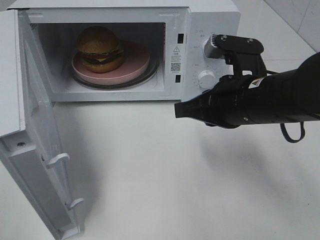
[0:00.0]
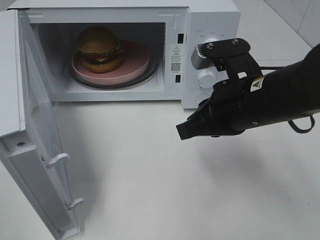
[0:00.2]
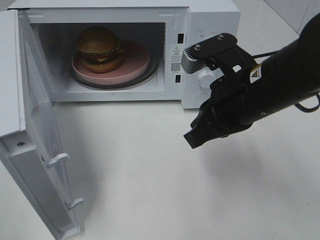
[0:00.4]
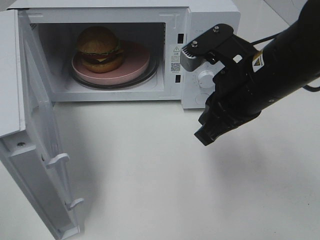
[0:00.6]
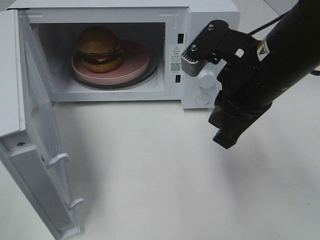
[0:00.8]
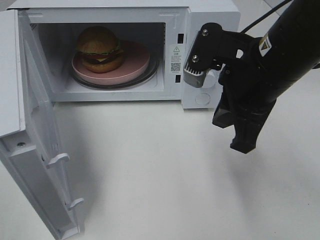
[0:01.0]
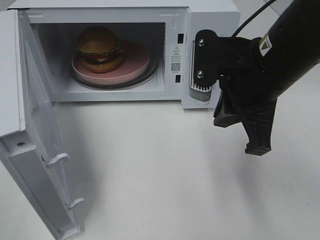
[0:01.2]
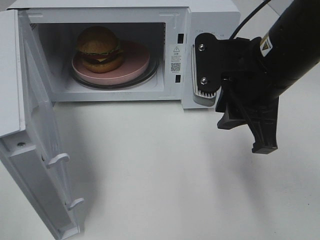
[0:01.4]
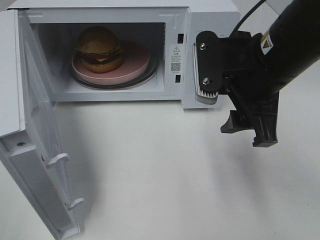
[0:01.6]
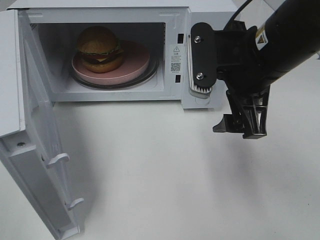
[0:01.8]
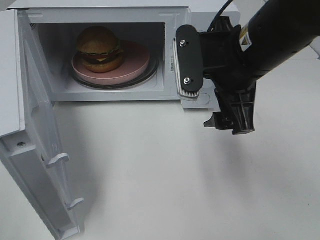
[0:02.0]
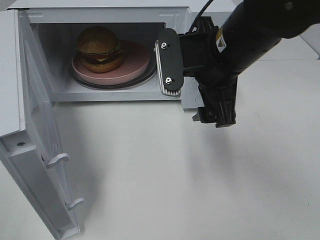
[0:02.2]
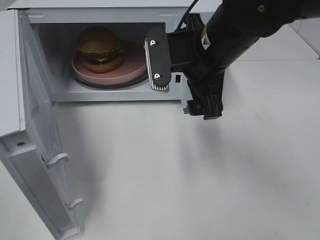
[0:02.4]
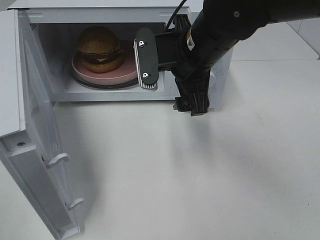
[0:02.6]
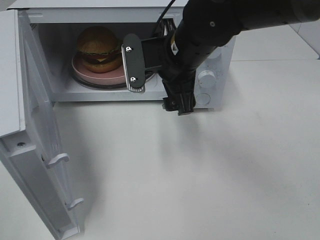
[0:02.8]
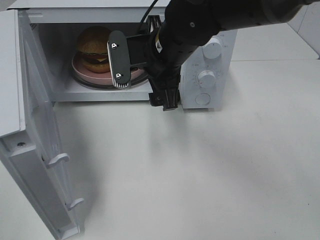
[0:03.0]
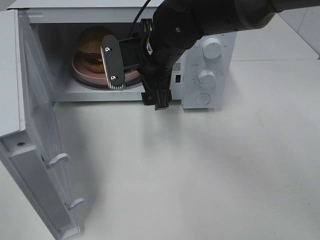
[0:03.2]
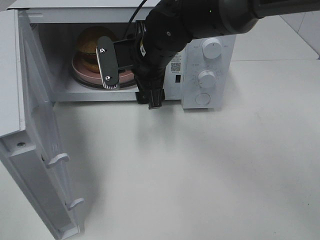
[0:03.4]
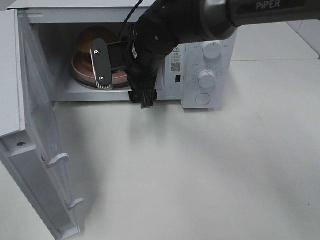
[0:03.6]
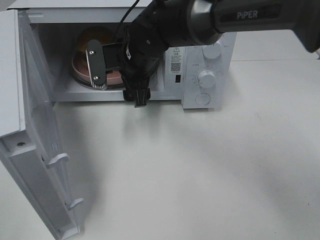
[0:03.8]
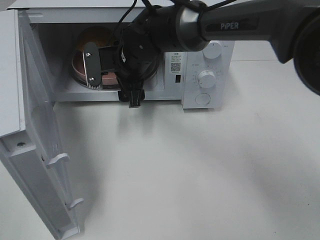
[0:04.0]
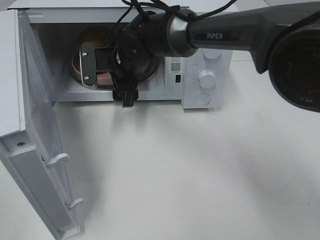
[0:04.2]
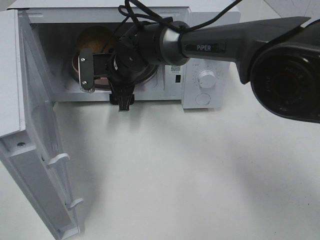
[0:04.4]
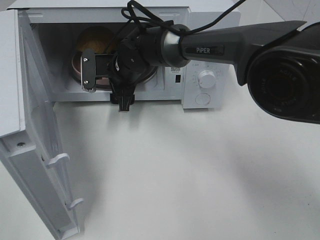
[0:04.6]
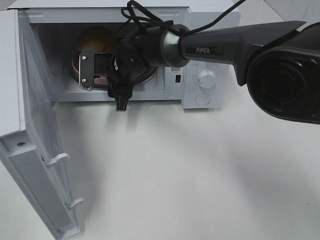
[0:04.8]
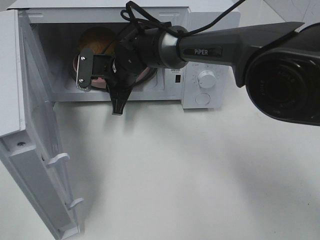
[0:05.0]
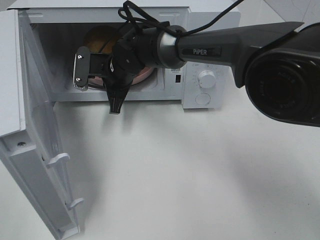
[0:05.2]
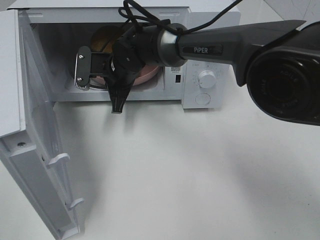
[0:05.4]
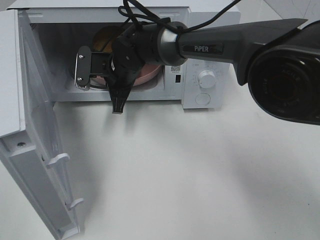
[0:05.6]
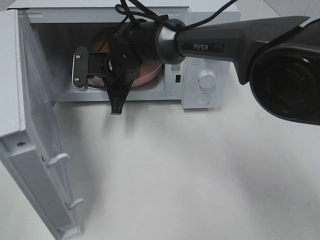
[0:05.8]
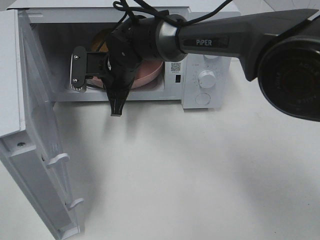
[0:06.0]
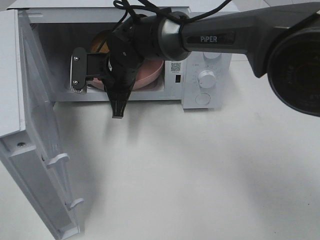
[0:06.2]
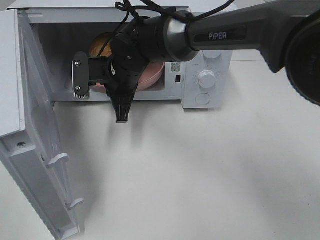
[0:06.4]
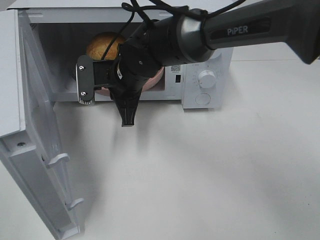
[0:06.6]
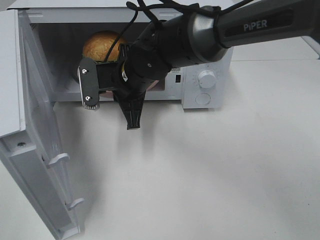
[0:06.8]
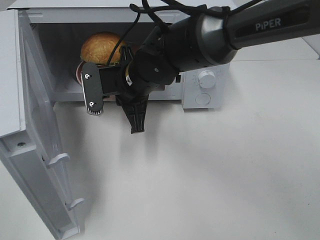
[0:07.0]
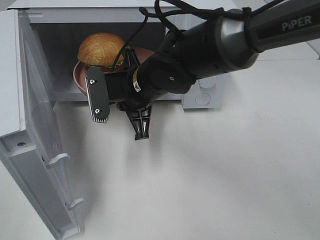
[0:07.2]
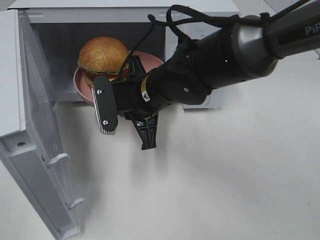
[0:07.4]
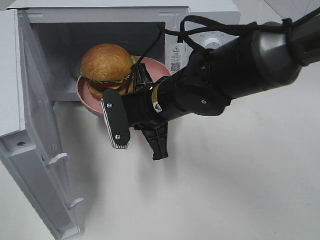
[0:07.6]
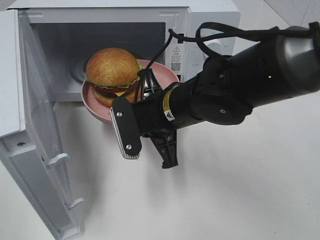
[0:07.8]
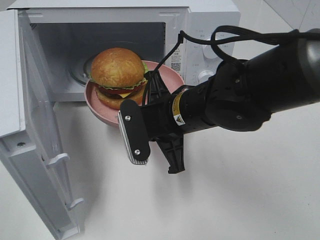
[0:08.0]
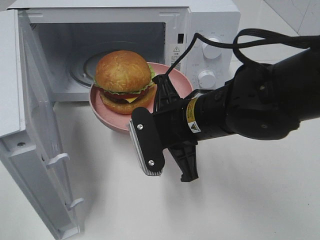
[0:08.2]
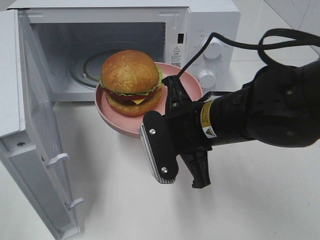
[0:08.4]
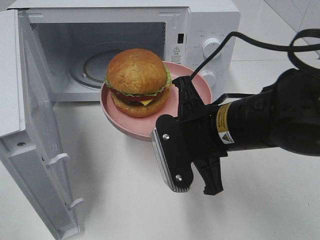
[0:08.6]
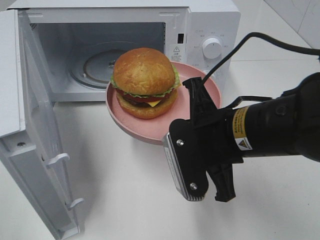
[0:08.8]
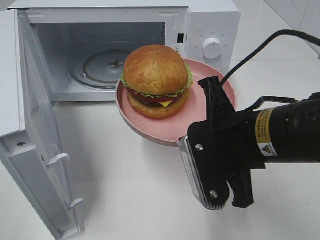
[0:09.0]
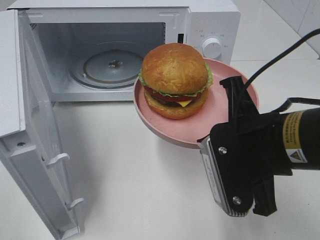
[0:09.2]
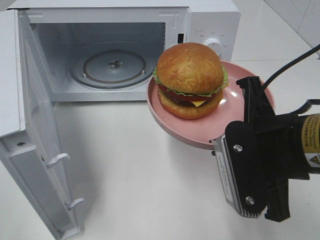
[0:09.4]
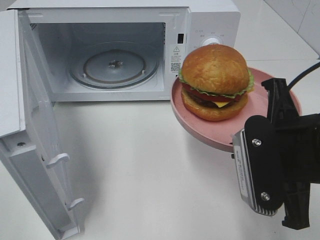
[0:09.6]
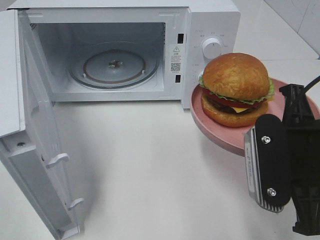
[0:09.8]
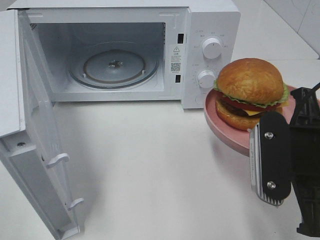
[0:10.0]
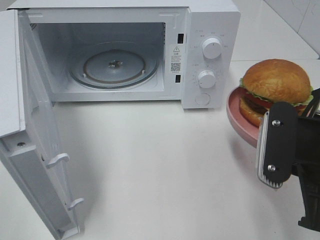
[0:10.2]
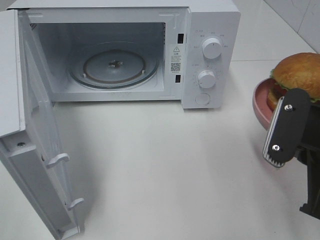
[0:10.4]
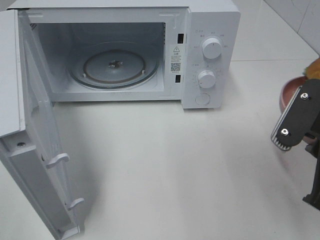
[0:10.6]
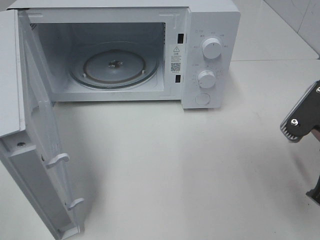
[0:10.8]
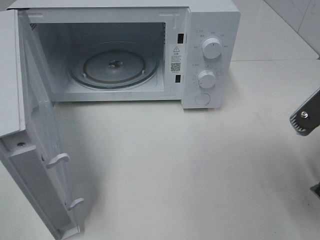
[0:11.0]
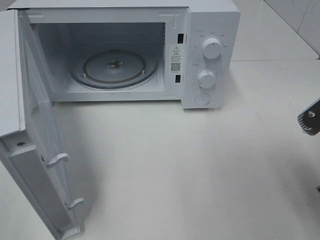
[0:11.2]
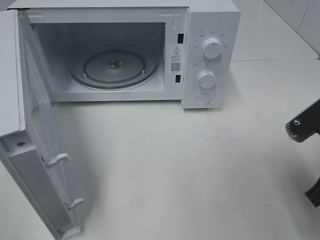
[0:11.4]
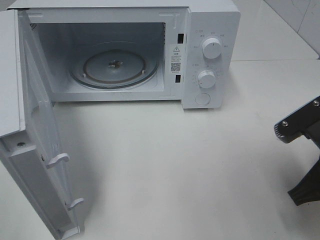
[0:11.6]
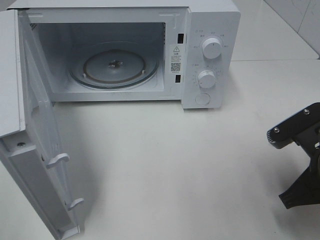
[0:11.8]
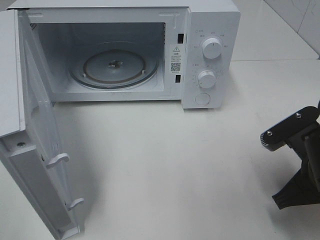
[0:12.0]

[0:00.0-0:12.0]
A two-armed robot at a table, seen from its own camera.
Task of the whole recording: Heat the burger.
Step, 0:00.0 to 0:05.0: Right hand: grab the plate with the hamburger.
0:00.0 to 0:01.6: The right gripper goes about 5 cm upward, and opens.
0:01.6 to 0:03.0: The right gripper heads to the left and forward, covering about 15 cm.
0:03.0 to 0:04.4: The right gripper heads forward, downward and to the left, covering some 15 cm.
0:04.4 to 0:06.0: The right gripper closes up.
0:06.0 to 0:07.6: The right gripper shifts about 15 cm backward and to the right.
0:07.6 to 0:09.0: The right gripper moves backward and to the right, some 15 cm.
0:09.0 to 0:10.4: The right gripper moves to the right, approximately 10 cm.
0:10.4 to 0:12.0: The right gripper heads downward, covering some 5 cm.

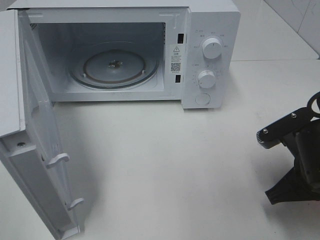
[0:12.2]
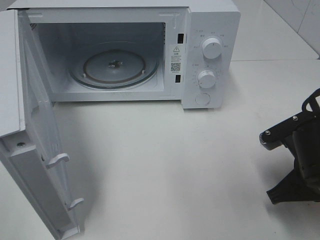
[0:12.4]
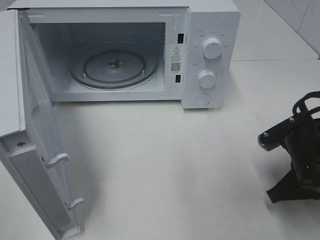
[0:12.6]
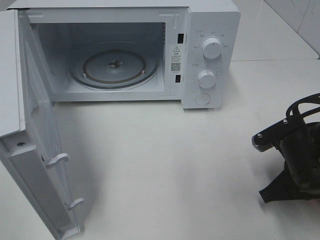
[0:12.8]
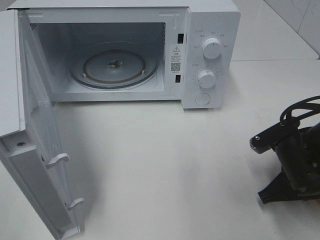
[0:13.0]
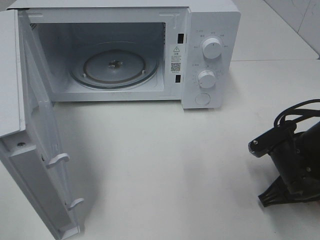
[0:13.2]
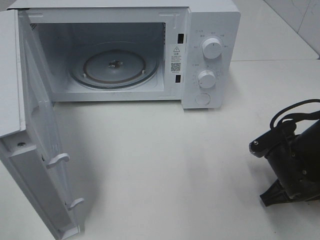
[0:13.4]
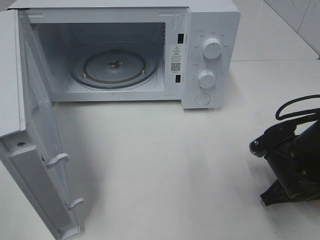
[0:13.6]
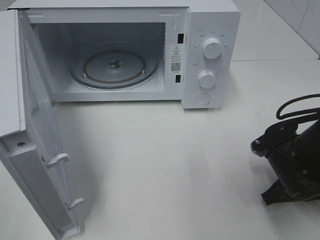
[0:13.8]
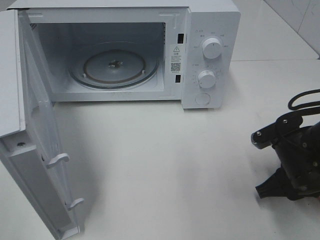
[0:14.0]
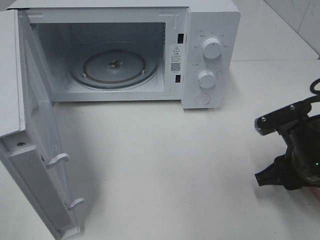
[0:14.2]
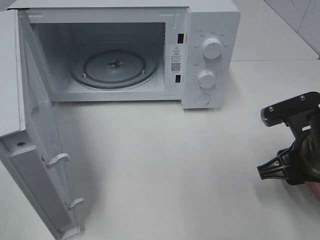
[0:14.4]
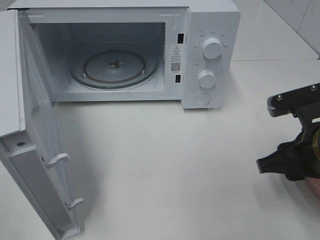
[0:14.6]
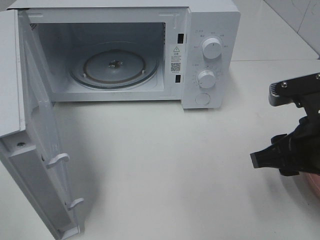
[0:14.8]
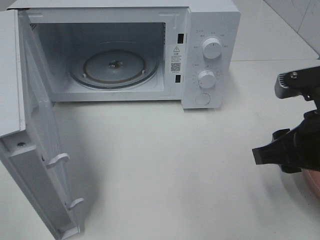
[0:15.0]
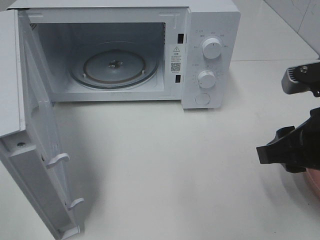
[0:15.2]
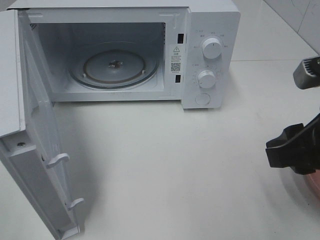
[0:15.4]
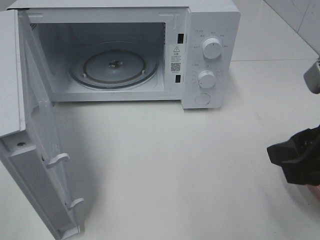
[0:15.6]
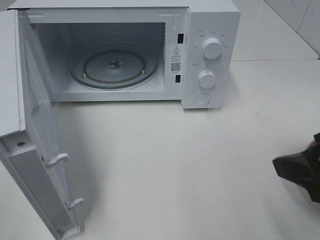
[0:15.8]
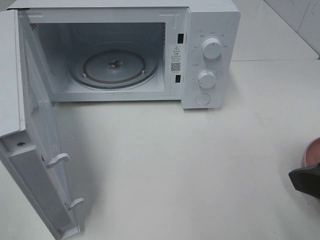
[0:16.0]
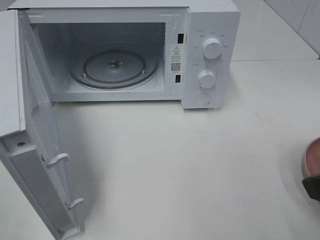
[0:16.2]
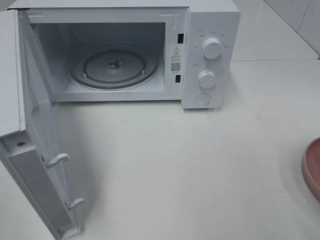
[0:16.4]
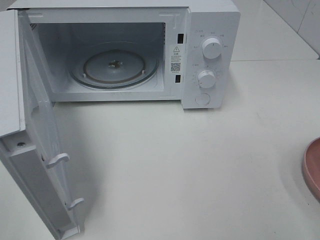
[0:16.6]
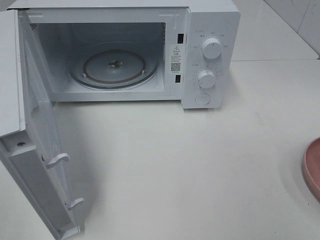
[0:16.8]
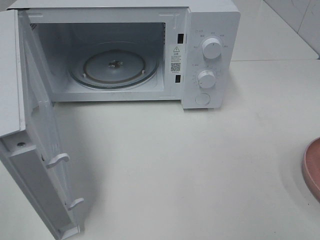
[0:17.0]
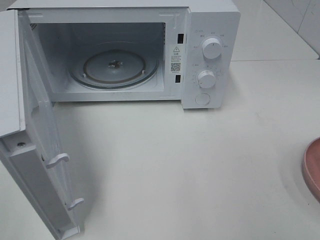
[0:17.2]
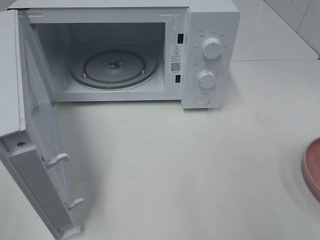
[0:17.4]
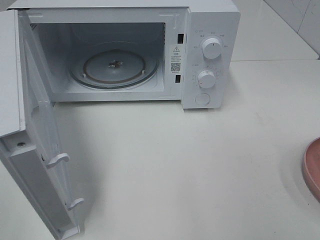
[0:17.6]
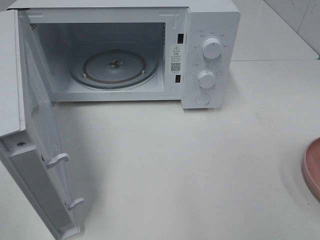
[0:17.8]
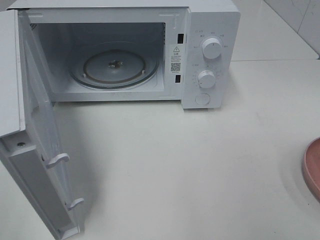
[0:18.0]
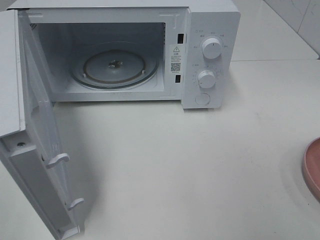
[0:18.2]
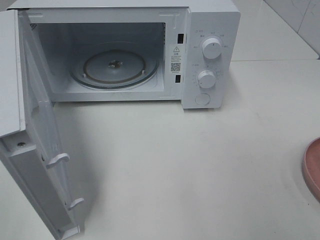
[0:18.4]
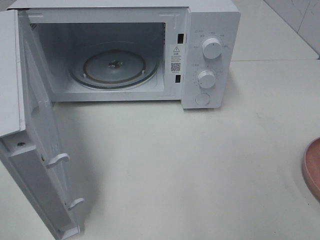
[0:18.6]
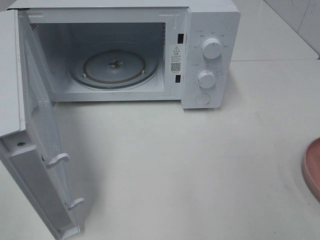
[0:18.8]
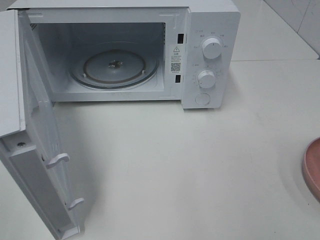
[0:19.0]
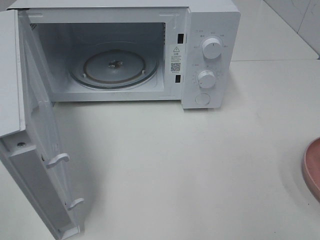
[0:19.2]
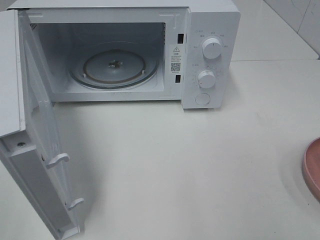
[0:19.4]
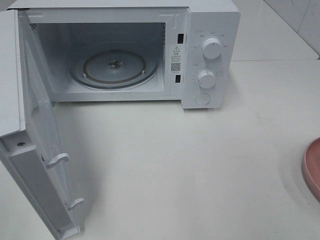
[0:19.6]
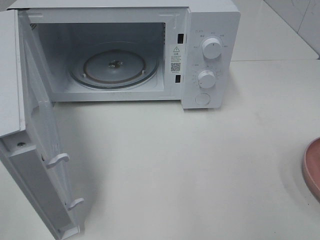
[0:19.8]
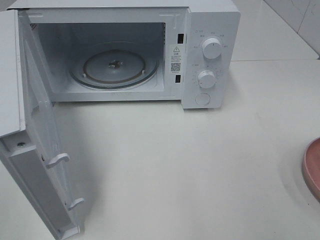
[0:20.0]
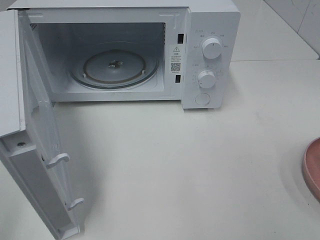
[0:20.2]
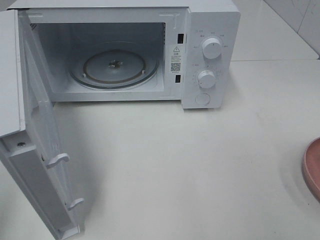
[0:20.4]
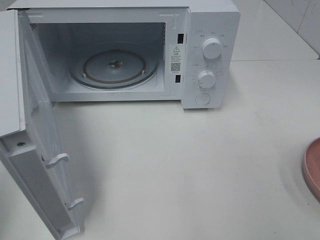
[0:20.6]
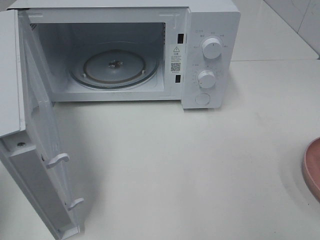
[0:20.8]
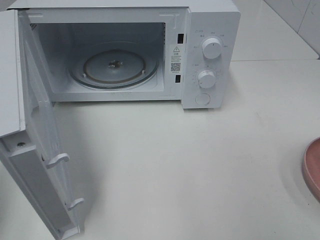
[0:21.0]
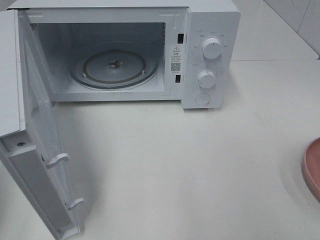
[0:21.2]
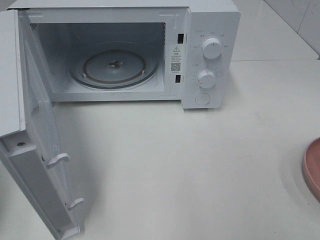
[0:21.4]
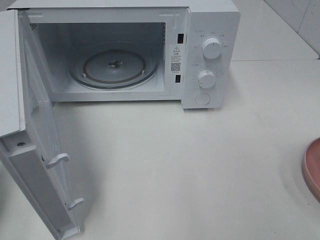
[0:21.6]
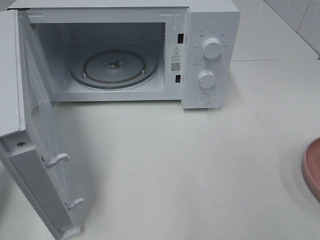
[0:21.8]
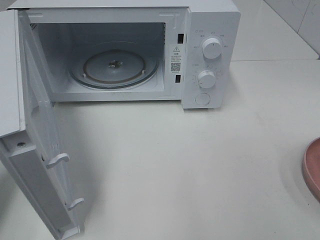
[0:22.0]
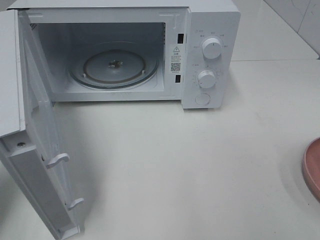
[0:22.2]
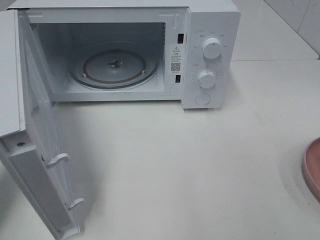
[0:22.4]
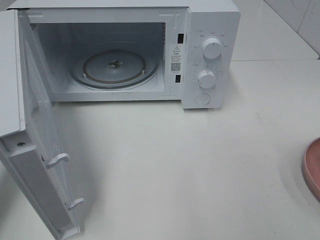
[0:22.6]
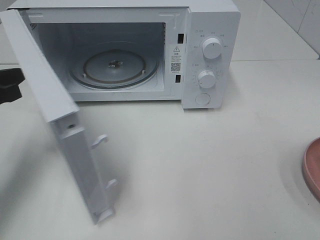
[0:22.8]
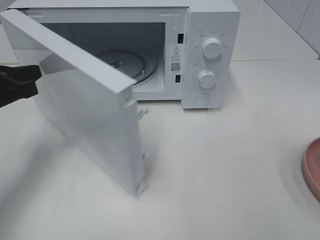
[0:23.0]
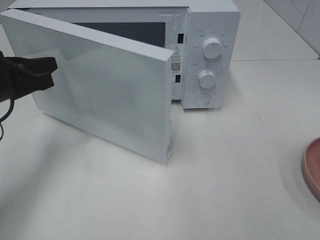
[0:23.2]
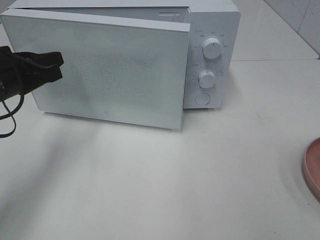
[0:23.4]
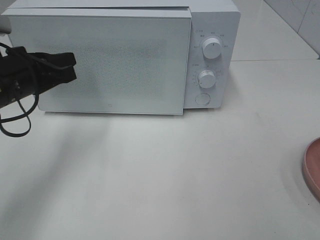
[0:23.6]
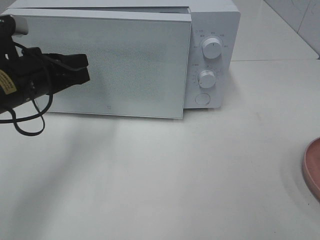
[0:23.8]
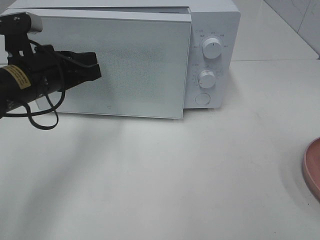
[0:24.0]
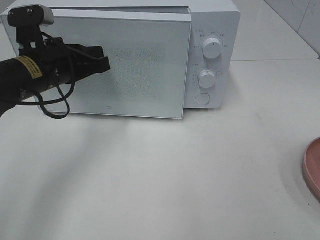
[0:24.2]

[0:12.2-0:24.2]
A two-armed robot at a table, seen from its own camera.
Task of the whole recording: Heat the burger.
0:12.2 to 0:13.8: The right gripper heads downward, covering approximately 5 cm.
0:13.8 to 0:15.2: The right gripper travels upward by approximately 15 cm.
0:15.2 to 0:16.6: The right gripper heads backward, upward and to the right, covering approximately 15 cm.
0:21.2 to 0:22.6: The left gripper heads forward and downward, covering some 15 cm.
0:22.6 to 0:24.2: The left gripper is displaced to the right and forward by some 15 cm.
